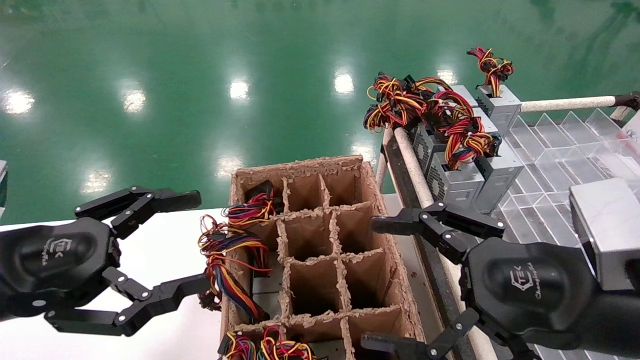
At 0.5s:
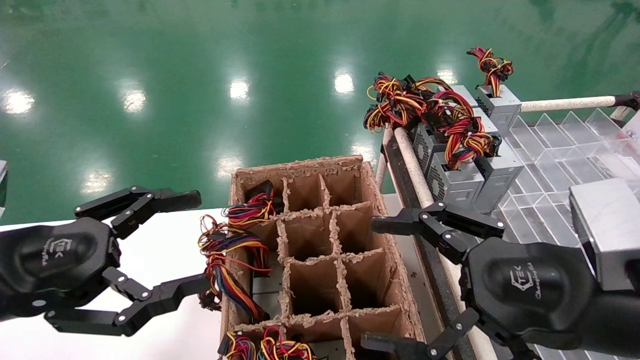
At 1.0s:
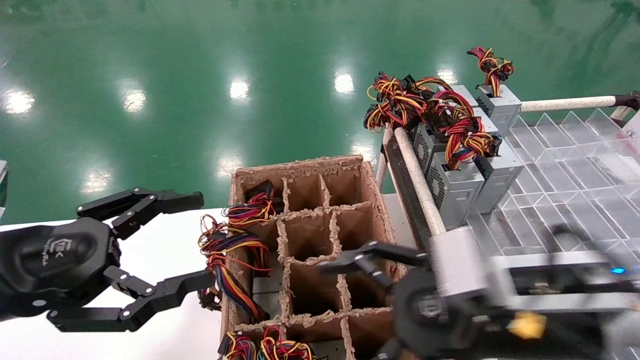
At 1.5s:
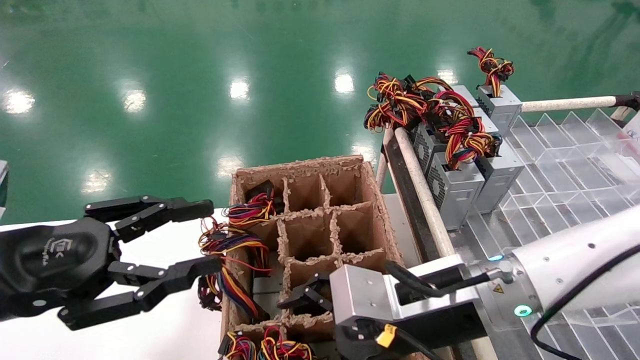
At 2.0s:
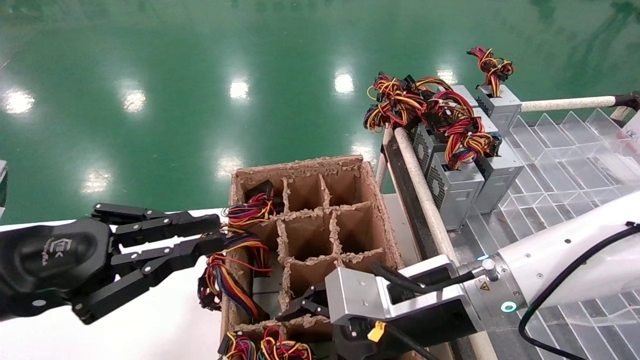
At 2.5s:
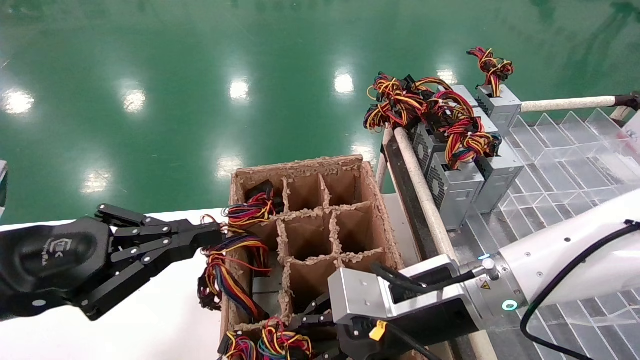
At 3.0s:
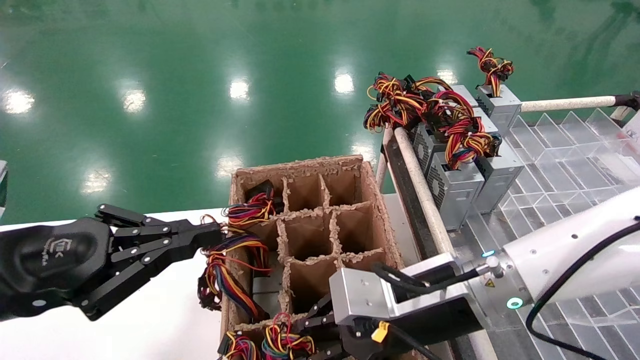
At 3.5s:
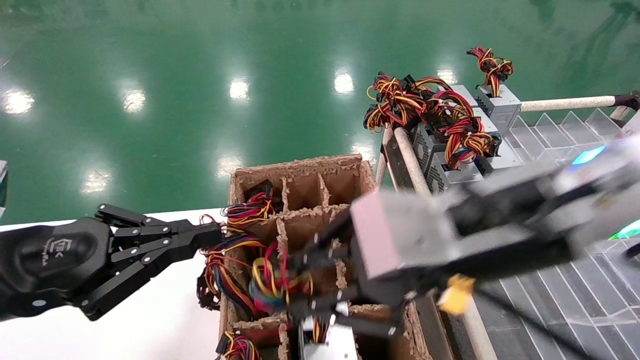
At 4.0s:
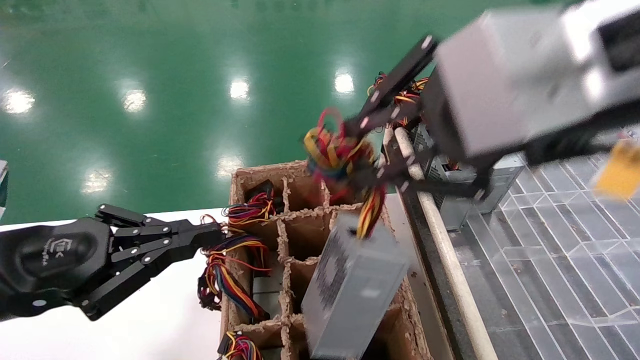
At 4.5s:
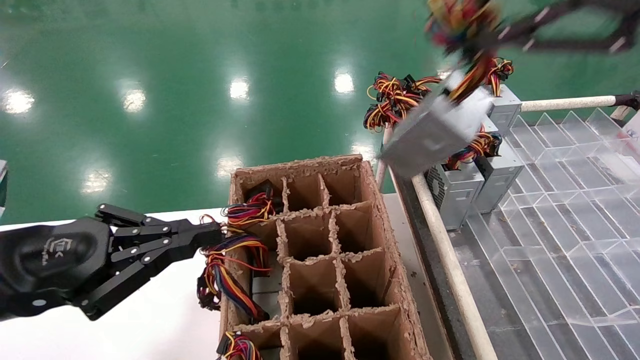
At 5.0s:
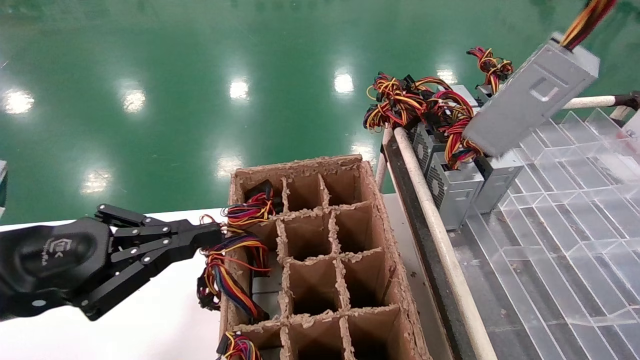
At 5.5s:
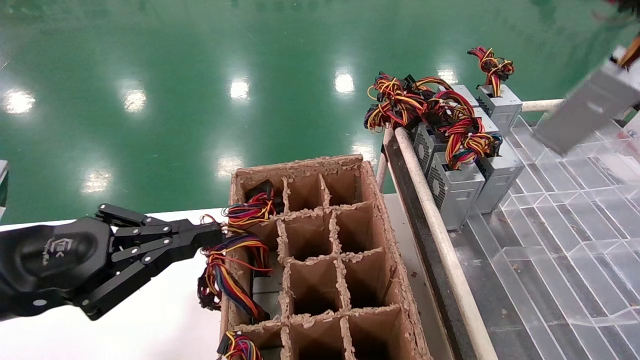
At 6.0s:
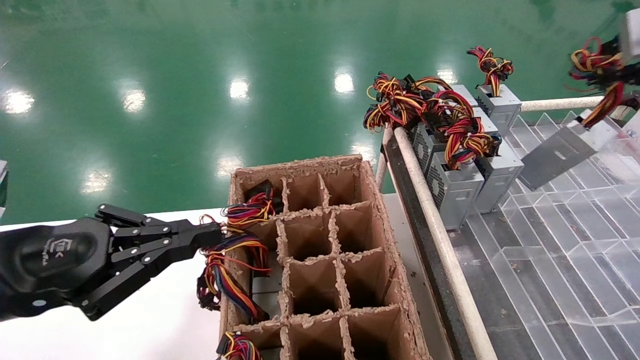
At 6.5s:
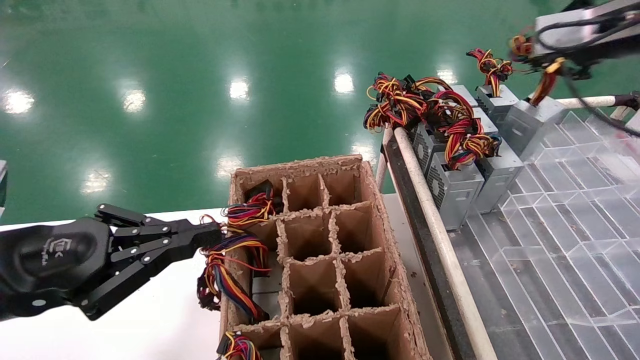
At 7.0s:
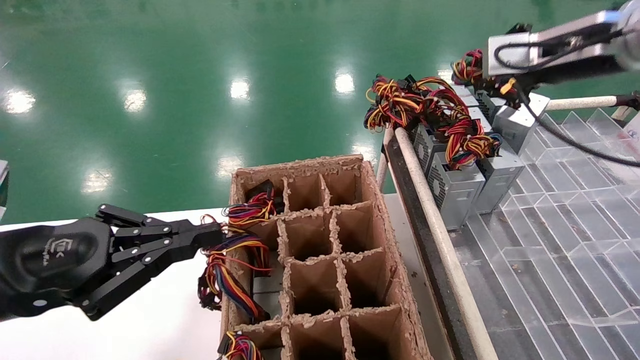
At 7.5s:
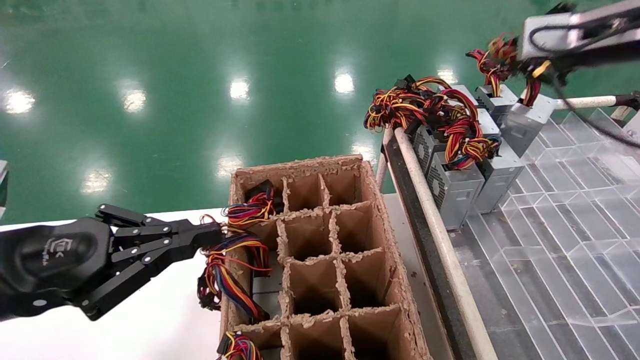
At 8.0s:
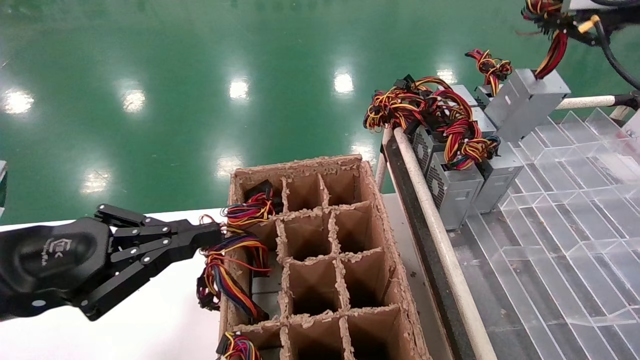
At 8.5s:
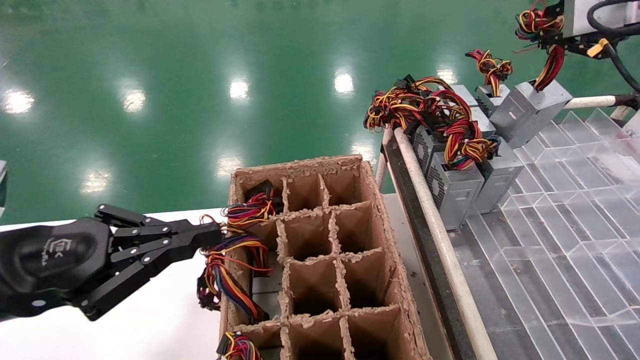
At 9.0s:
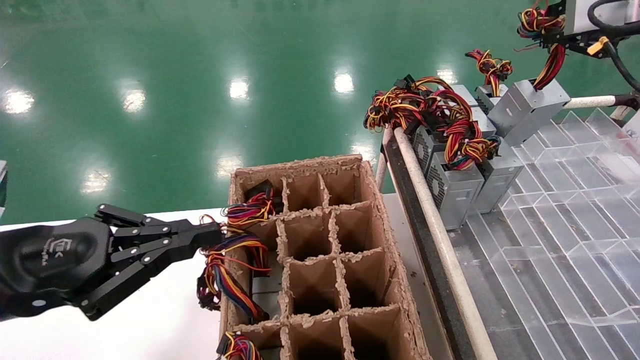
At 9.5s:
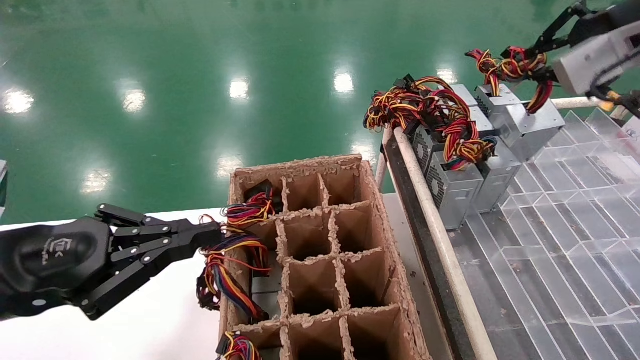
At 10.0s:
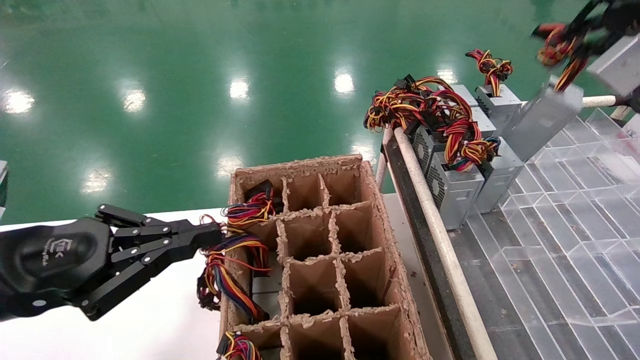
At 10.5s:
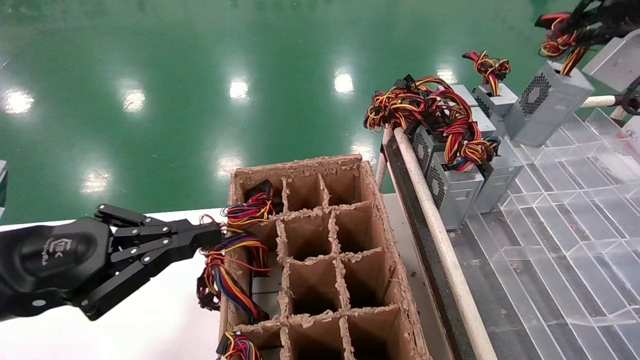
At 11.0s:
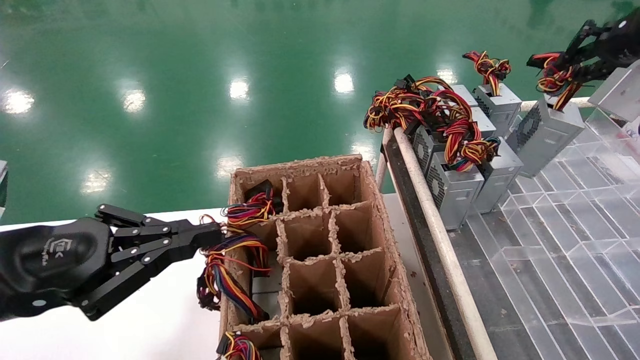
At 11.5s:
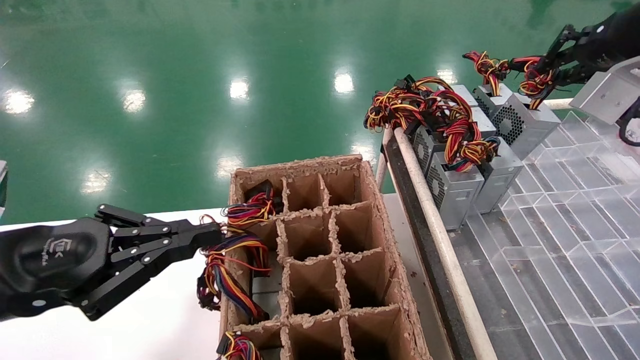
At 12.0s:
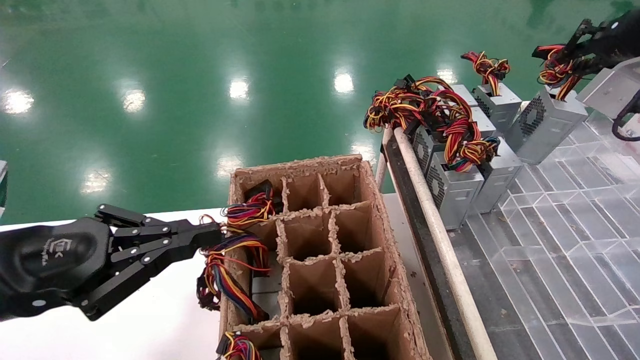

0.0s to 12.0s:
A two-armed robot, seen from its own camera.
Step, 1.5s to 3.0s: Grab the main unit power supply from the containment box.
0.0s to 2.0s: The right gripper shifts approximately 15 cm to the left, forward and downward. Meanwhile the left gripper closes up.
2.0s to 4.0s: The right gripper shifts some 30 cm upward and backward, and closes up.
4.0s to 6.0s: The right gripper is displaced to the right and forward by roughly 25 cm.
6.0s to 8.0s: The right gripper goes about 5 cm forward.
10.0s to 12.0s: The grippers stay close to where they were, moving slightly.

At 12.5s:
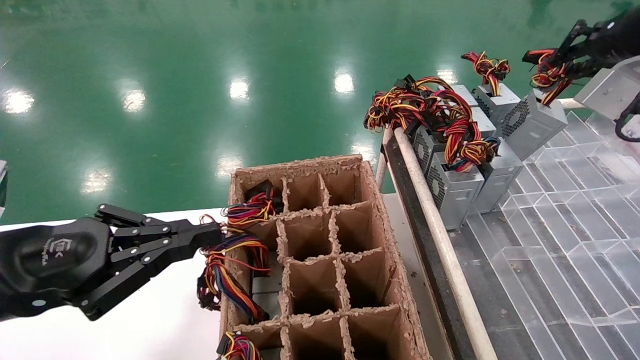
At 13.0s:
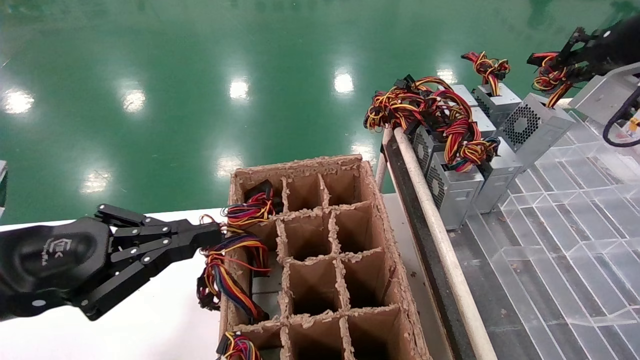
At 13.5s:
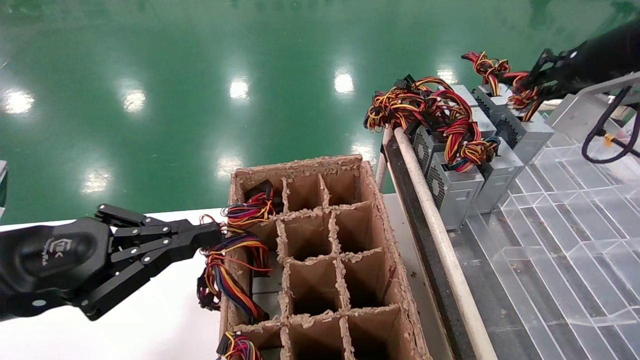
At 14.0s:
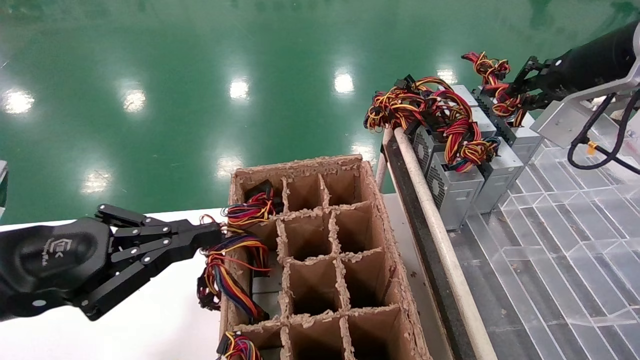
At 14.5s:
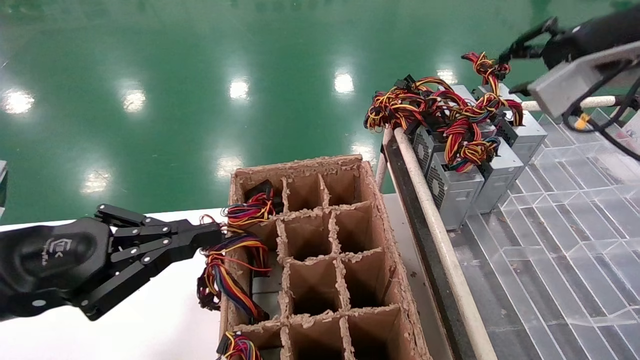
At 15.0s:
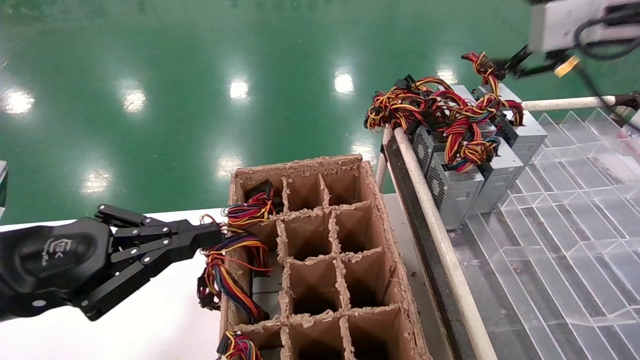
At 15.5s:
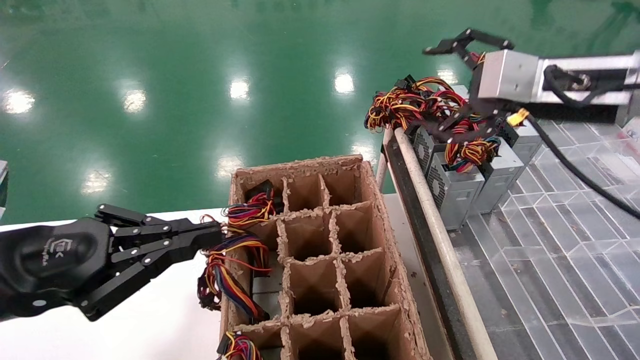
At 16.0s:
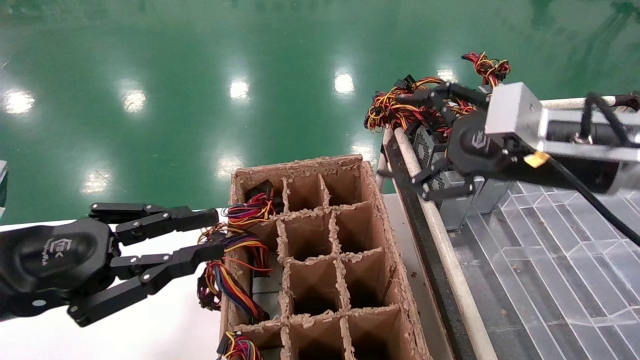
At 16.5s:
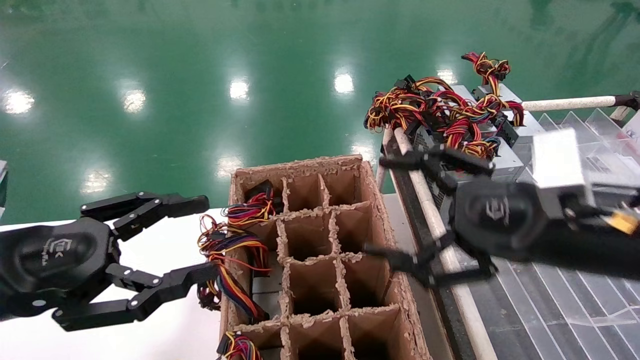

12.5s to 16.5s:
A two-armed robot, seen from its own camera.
Step, 12.5s to 14.5s: Place the main unit power supply in the designated area.
14.5s to 16.5s: The right gripper is displaced downward, backward and to the left by about 25 cm, and opens up, while the left gripper opens.
